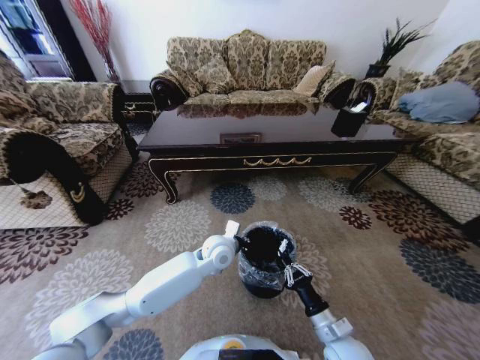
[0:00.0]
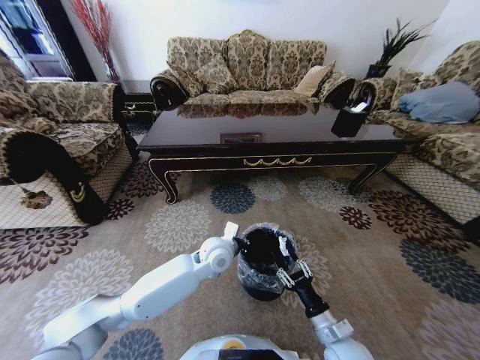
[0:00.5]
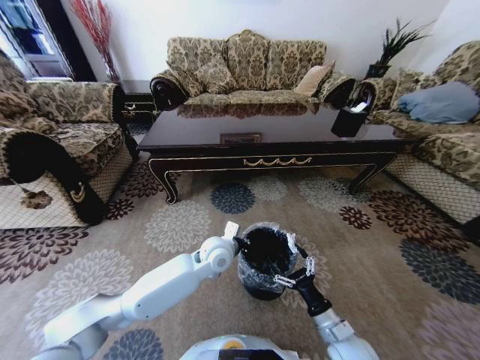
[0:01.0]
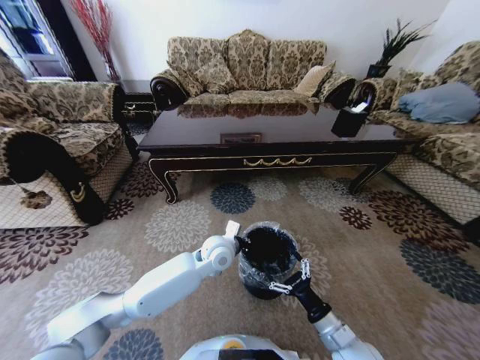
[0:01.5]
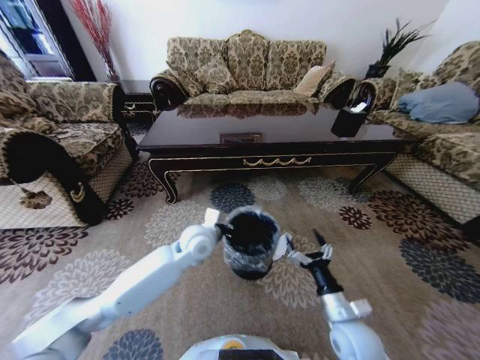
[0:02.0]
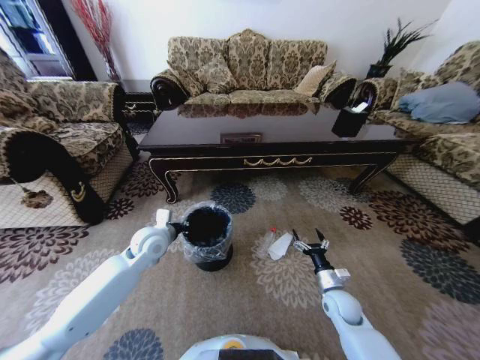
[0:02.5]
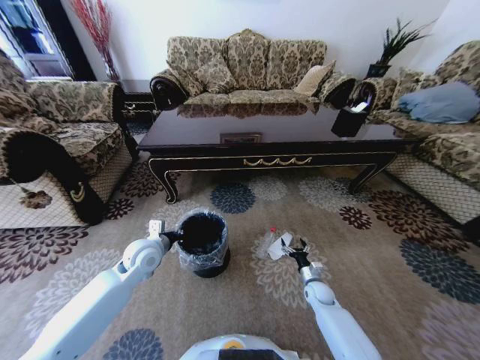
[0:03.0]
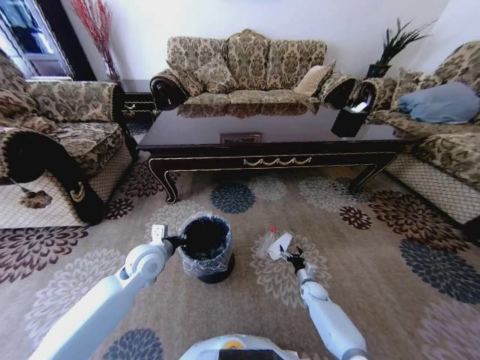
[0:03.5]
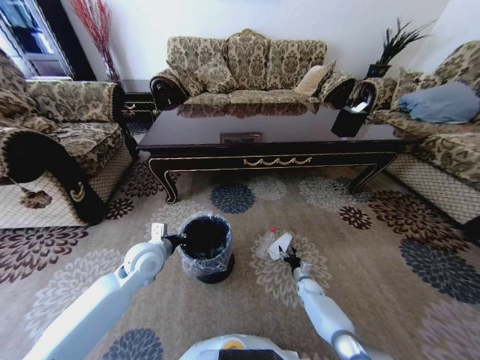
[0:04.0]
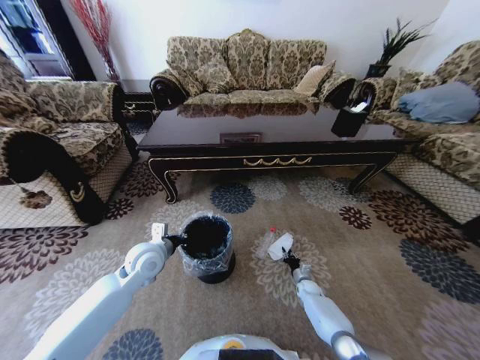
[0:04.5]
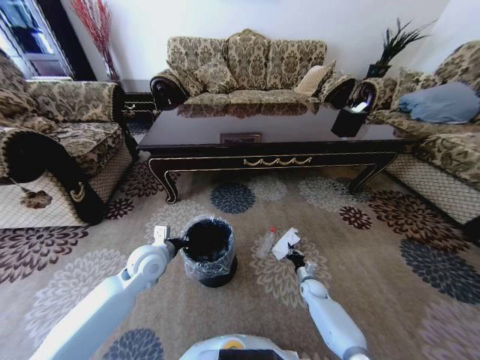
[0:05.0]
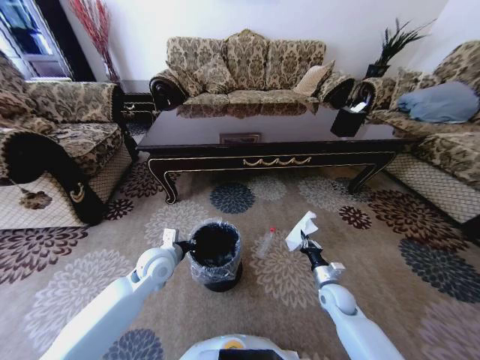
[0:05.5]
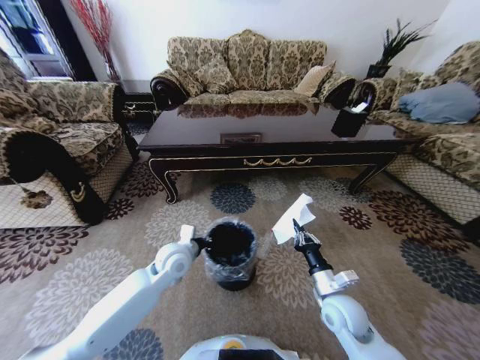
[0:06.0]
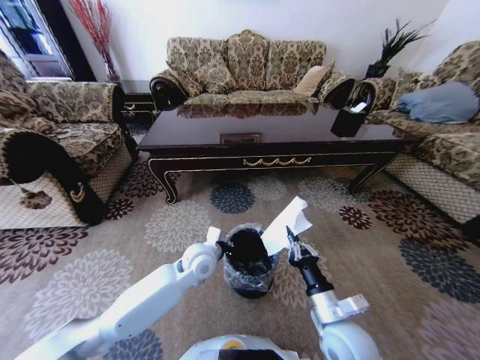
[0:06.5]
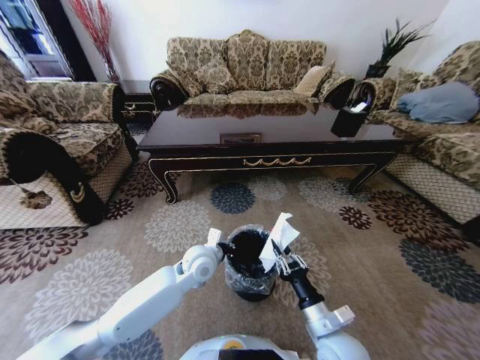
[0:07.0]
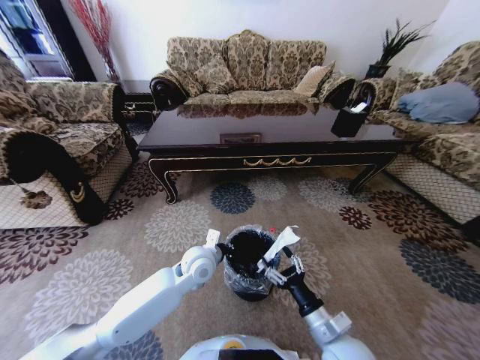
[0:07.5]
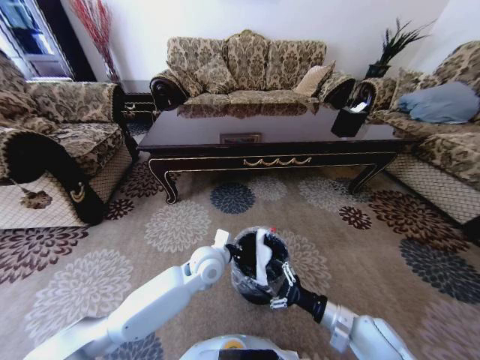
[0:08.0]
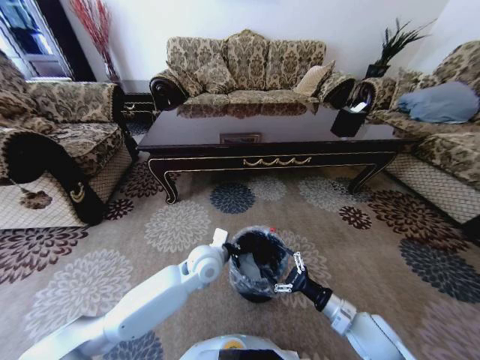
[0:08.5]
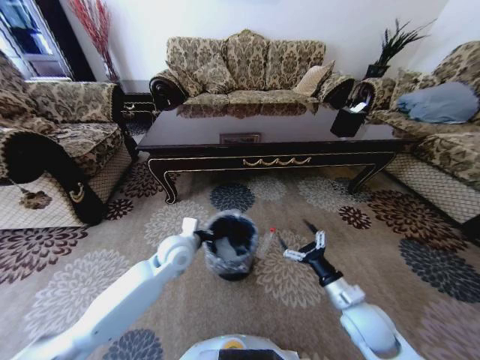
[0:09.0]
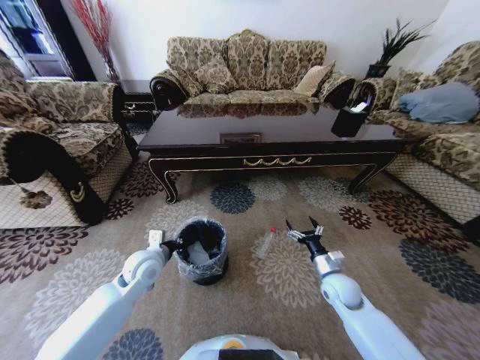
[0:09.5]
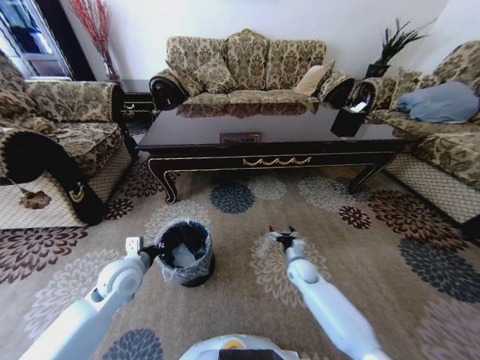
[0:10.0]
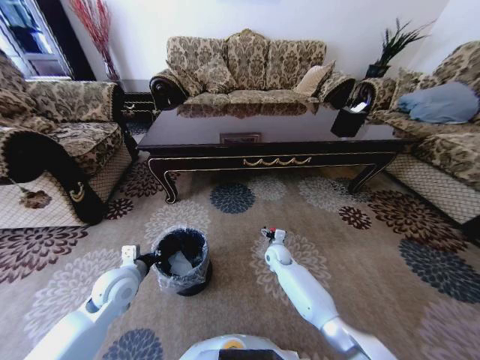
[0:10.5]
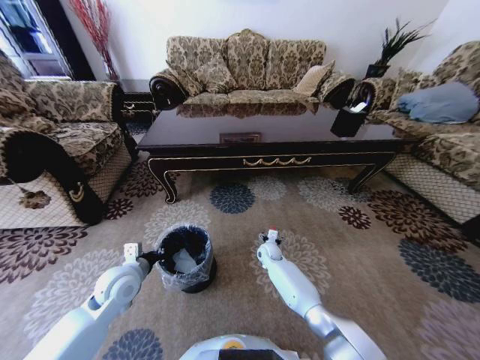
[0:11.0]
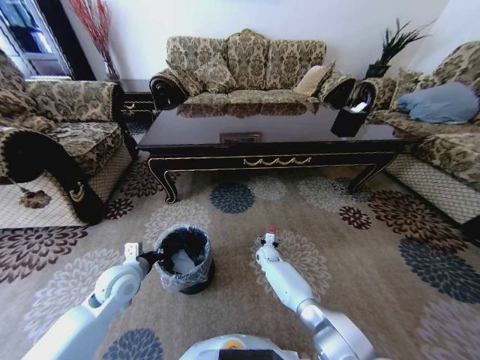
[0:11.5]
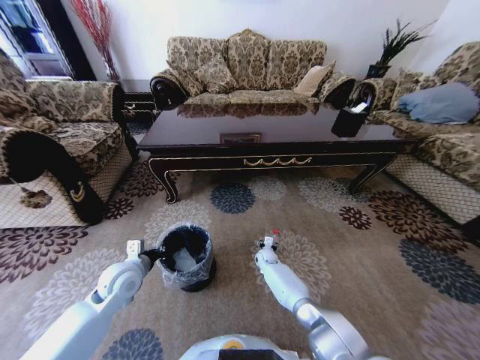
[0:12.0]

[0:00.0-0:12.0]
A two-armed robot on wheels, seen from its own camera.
Task of the whole recording: Move to the front of the table and pick up the trash from the floor, then place it into the trash bin.
0:00.0 to 0:02.0: The left gripper travels to the left by roughly 5 cm, while the right gripper shifts by some 5 cm, and opens.
0:02.0 to 0:04.0: The right gripper shifts some 35 cm downward and forward. Meanwhile the left gripper heads to the left, covering approximately 15 cm.
0:04.0 to 0:06.0: The left gripper heads to the right, covering approximately 10 cm. The right gripper is displaced upward and backward by about 30 cm, and closes.
0:06.0 to 0:08.0: The right gripper heads backward, covering roughly 5 cm, and opens up; the left gripper is displaced to the right by some 10 cm.
0:08.0 to 0:10.0: The right gripper is displaced forward and downward by approximately 25 cm. Meanwhile the left gripper heads to the left, covering approximately 20 cm.
0:10.0 to 0:12.0: The right gripper travels to the left, forward and downward by roughly 15 cm.

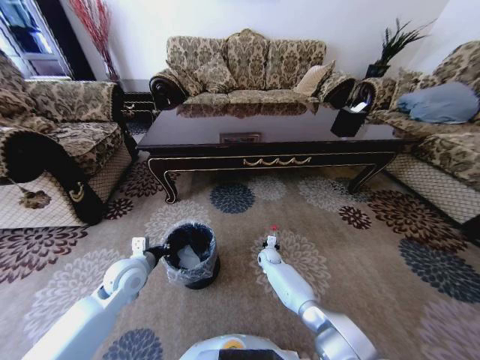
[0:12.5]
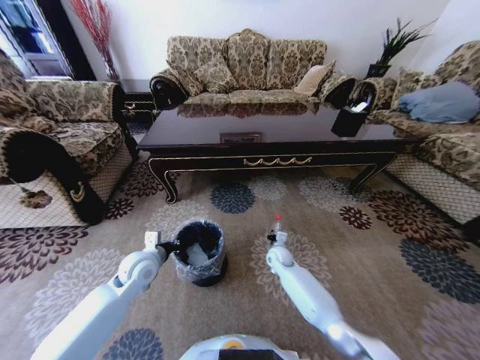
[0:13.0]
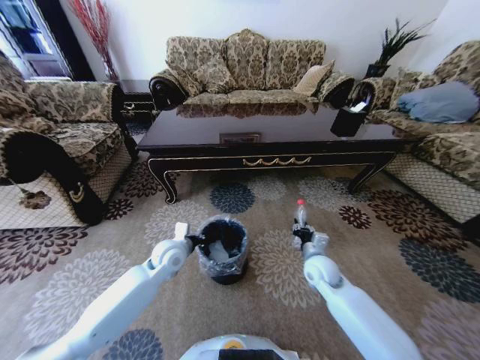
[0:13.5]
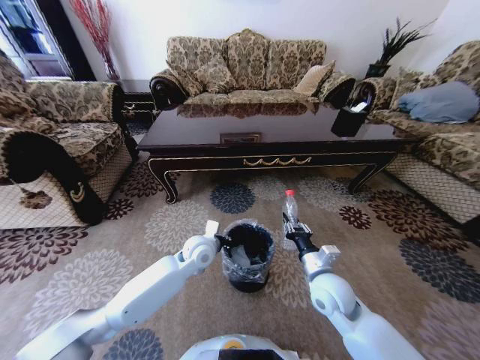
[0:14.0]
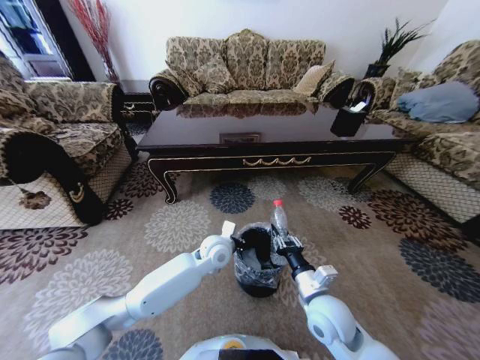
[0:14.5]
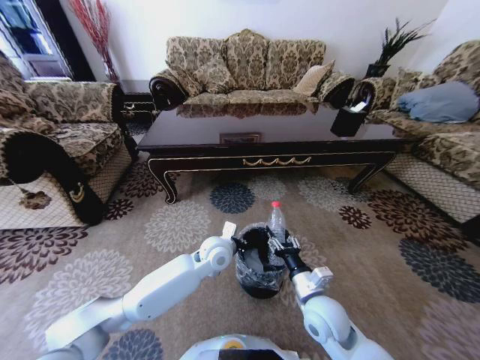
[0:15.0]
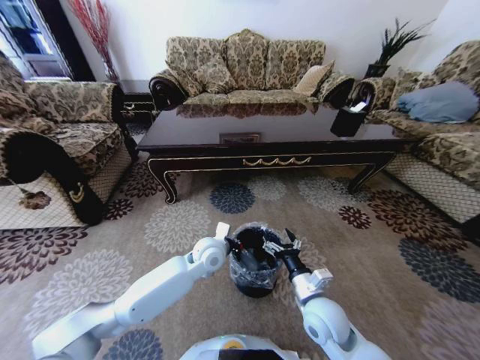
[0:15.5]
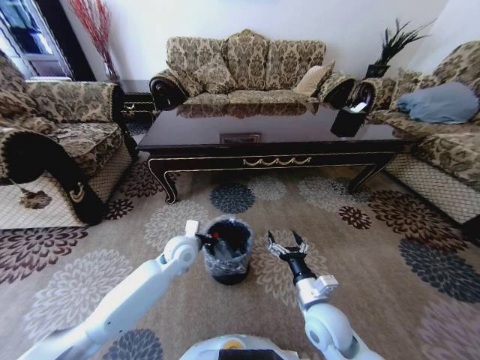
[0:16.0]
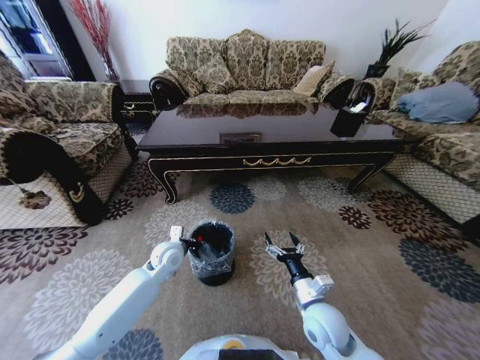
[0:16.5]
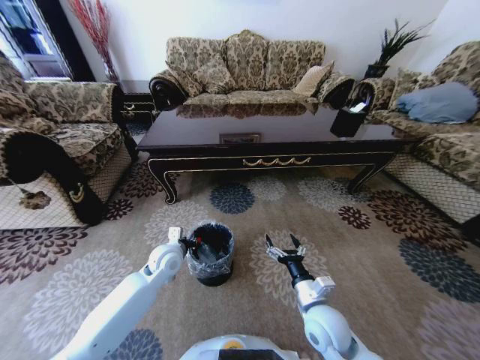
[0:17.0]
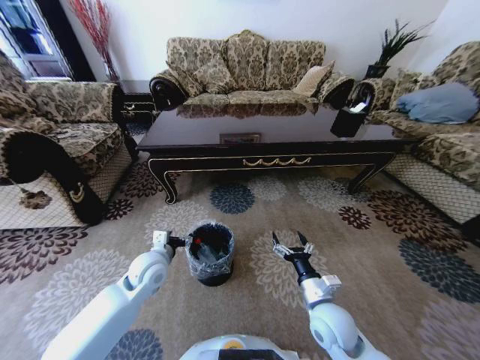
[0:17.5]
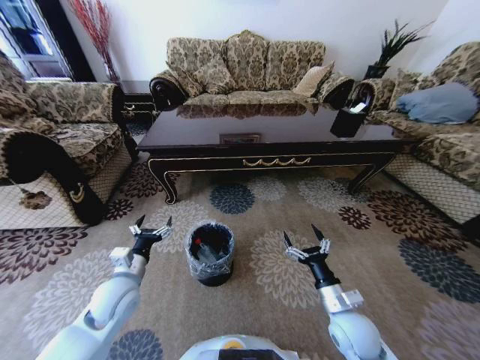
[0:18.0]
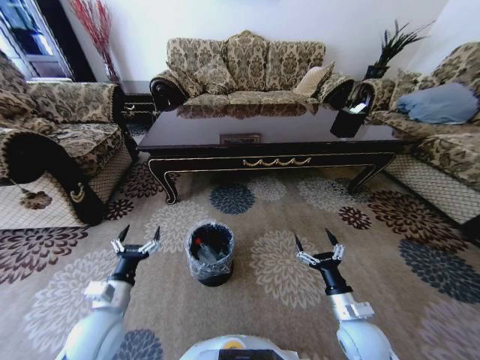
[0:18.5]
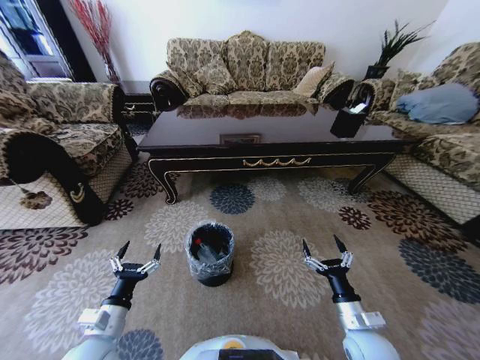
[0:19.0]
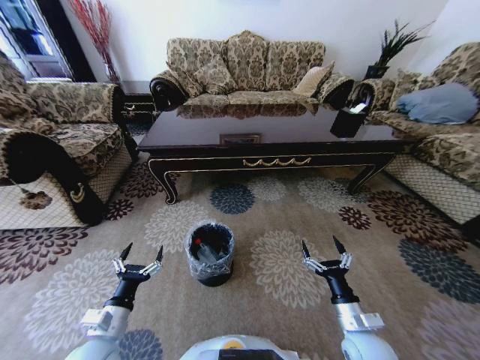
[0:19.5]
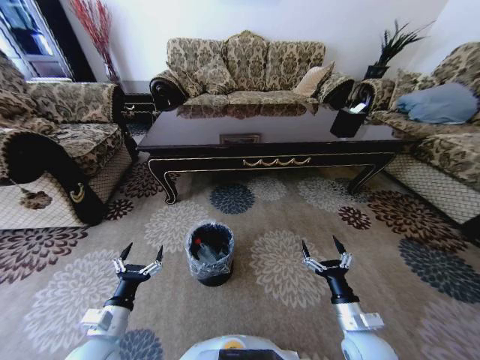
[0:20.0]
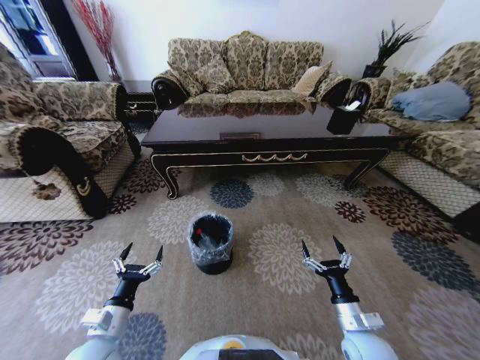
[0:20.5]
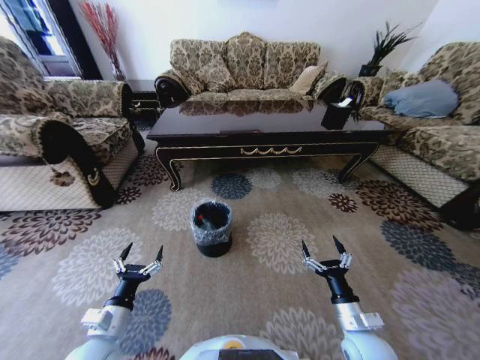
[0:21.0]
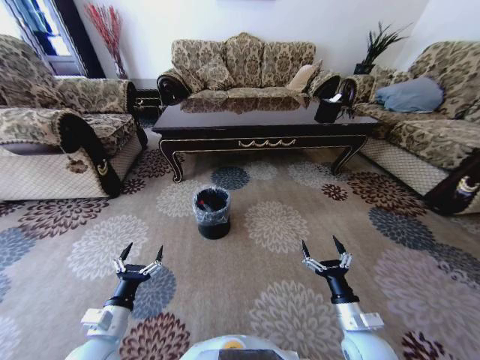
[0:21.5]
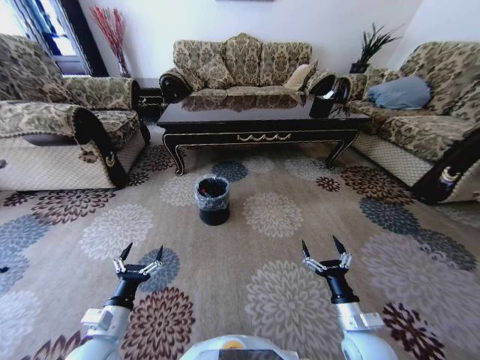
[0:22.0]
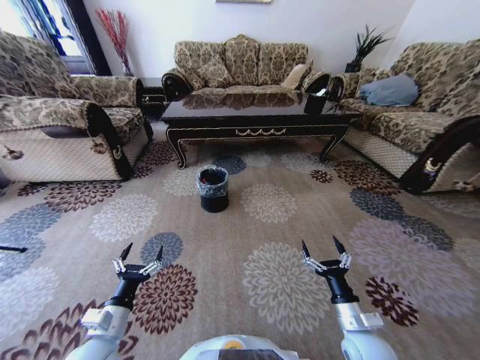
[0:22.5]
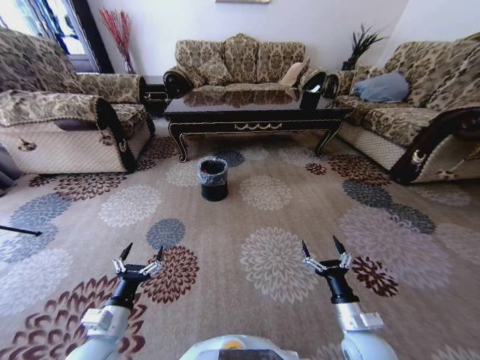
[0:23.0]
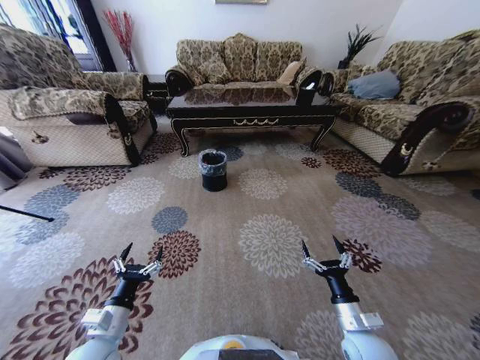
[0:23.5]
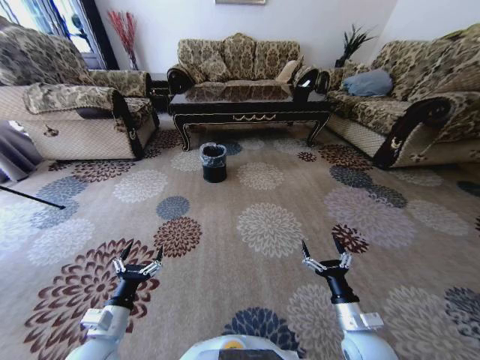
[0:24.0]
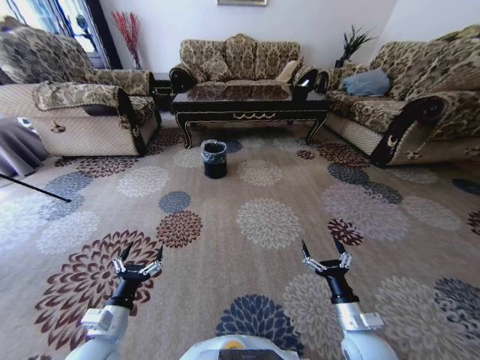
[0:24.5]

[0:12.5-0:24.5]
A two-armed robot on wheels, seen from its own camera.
Task of the whole recording: Move to the front of the table and pick up the trash from the floor, then place it into the trash bin.
0:12.5 to 0:14.5: The left gripper is displaced to the right by roughly 25 cm, while the right gripper is displaced backward and upward by some 35 cm.
0:14.5 to 0:16.5: The left gripper shifts some 15 cm to the left; the right gripper opens.
0:16.5 to 0:18.5: The right gripper is displaced to the right by approximately 10 cm. The left gripper travels backward and to the left by about 20 cm, and opens.
0:18.5 to 0:20.5: The left gripper heads backward, covering some 5 cm.

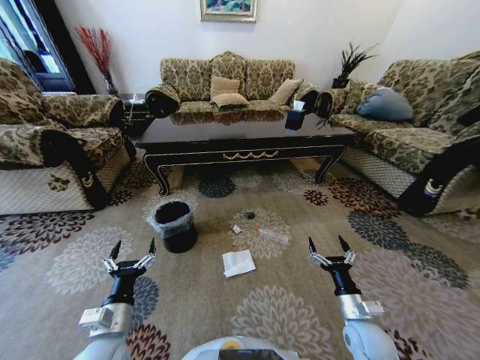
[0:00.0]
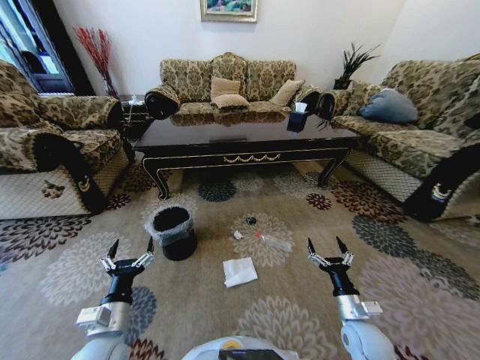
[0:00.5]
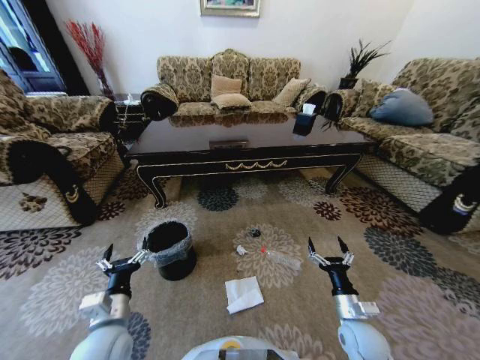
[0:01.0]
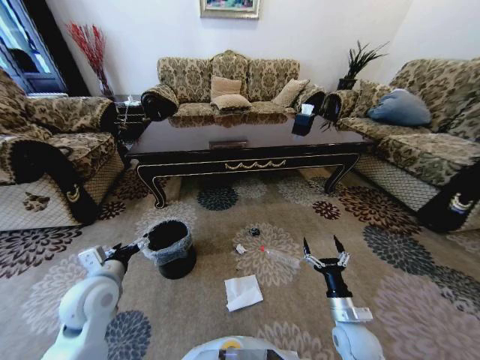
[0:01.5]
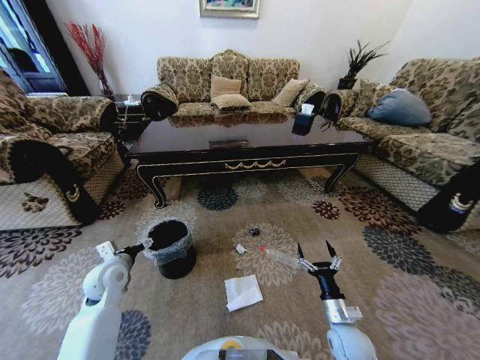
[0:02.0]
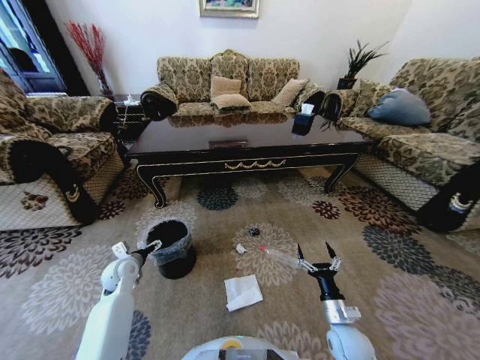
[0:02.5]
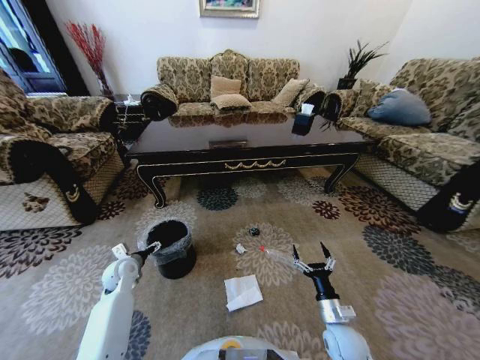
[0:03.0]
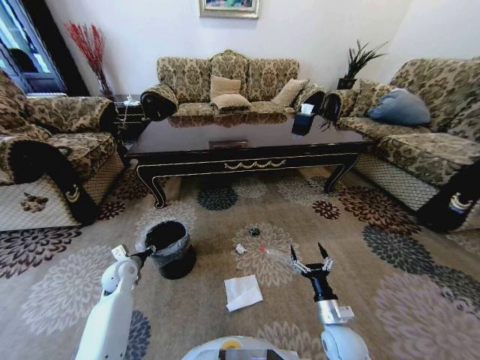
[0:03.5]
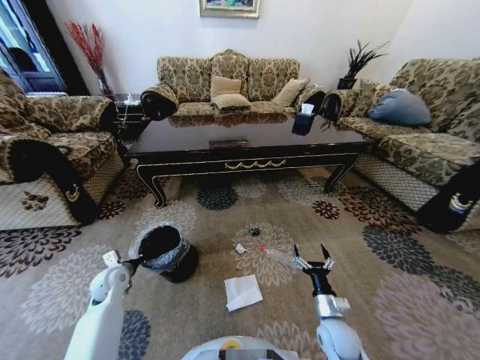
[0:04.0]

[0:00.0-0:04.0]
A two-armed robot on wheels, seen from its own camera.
Task of the whole recording: Move to the front of the table and pick up the trash from the floor, then place it into the trash bin.
0:00.0 to 0:02.0: The left gripper goes approximately 20 cm forward and to the left.
0:02.0 to 0:04.0: The left gripper is displaced downward by approximately 5 cm, and closes.
